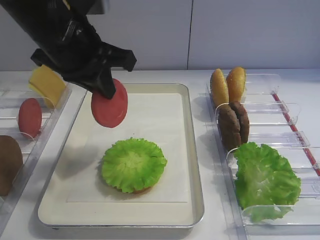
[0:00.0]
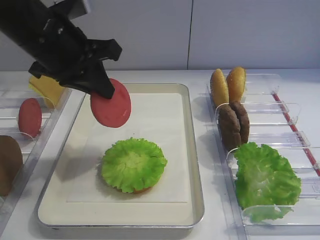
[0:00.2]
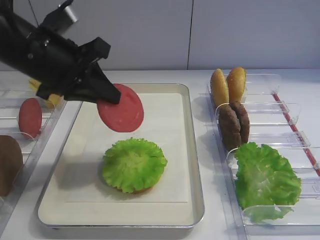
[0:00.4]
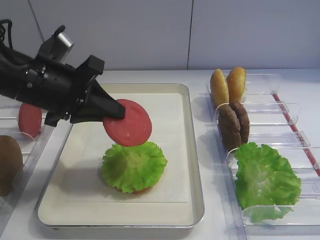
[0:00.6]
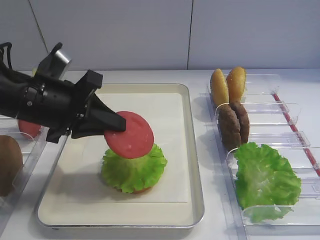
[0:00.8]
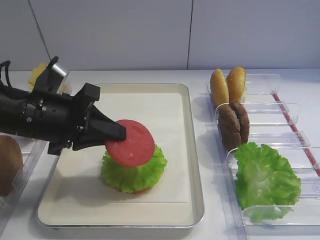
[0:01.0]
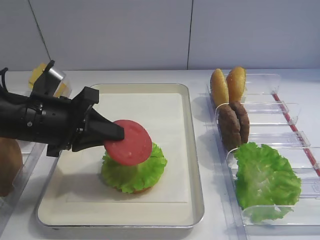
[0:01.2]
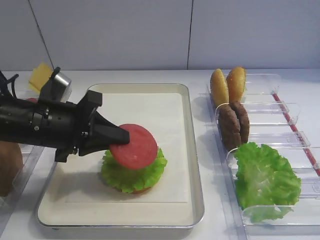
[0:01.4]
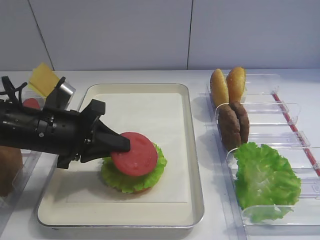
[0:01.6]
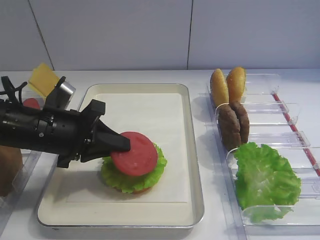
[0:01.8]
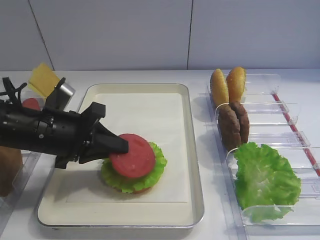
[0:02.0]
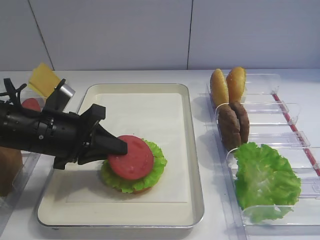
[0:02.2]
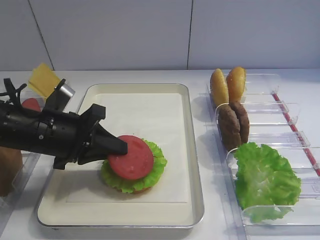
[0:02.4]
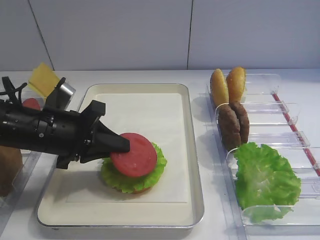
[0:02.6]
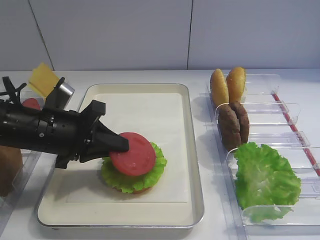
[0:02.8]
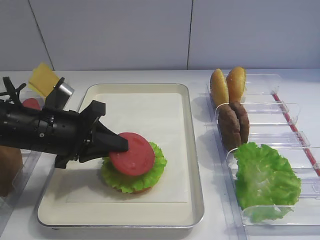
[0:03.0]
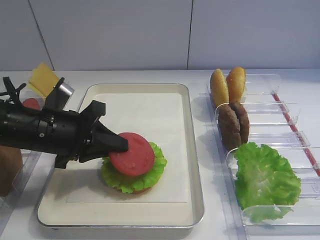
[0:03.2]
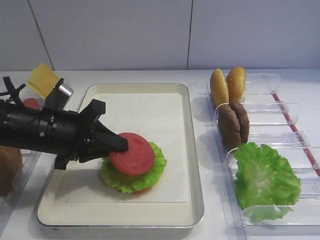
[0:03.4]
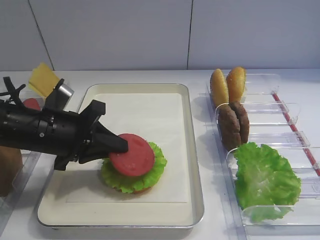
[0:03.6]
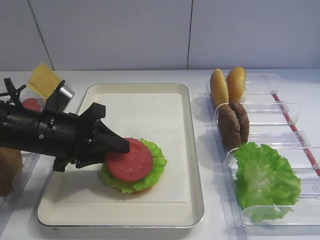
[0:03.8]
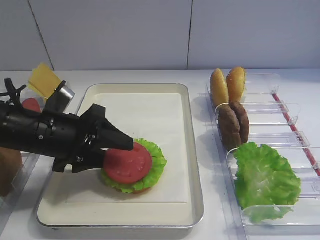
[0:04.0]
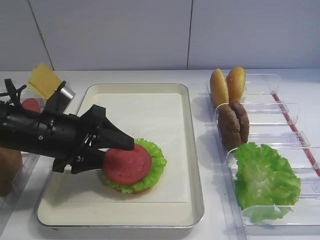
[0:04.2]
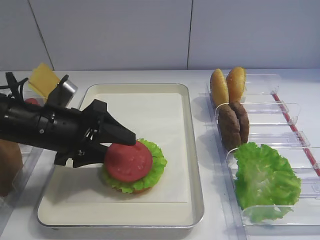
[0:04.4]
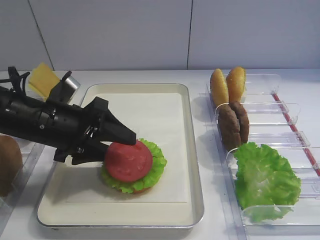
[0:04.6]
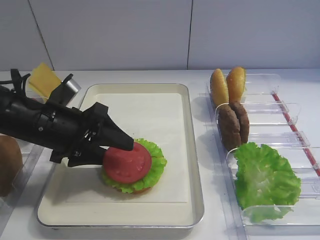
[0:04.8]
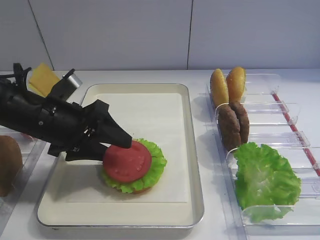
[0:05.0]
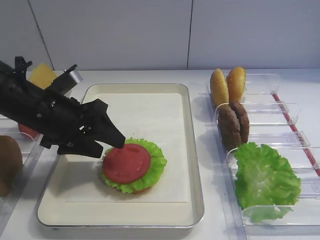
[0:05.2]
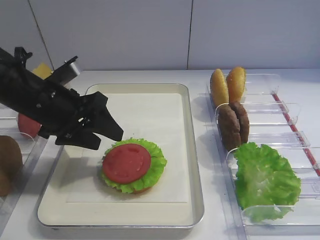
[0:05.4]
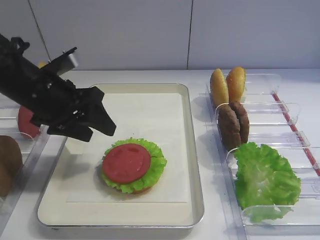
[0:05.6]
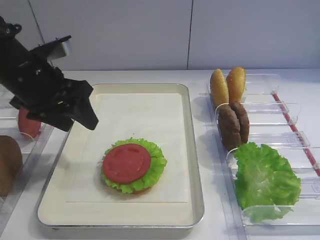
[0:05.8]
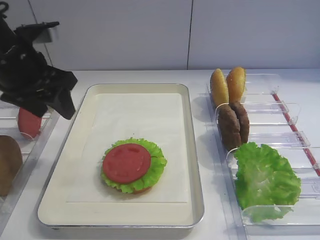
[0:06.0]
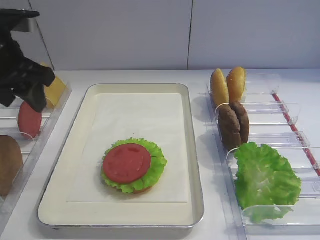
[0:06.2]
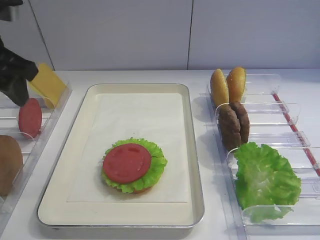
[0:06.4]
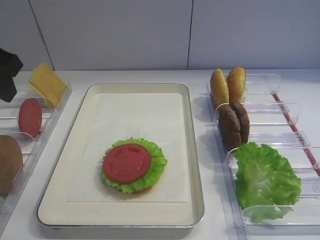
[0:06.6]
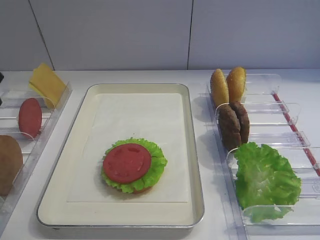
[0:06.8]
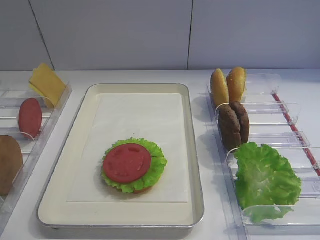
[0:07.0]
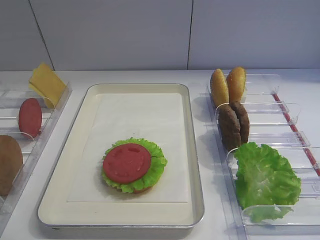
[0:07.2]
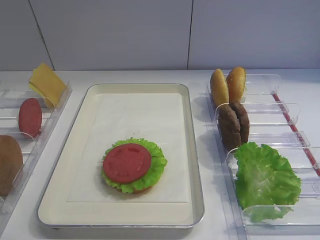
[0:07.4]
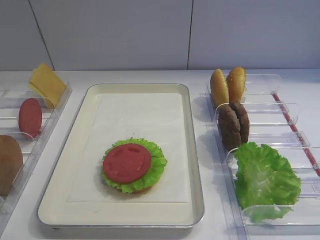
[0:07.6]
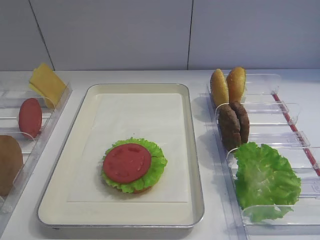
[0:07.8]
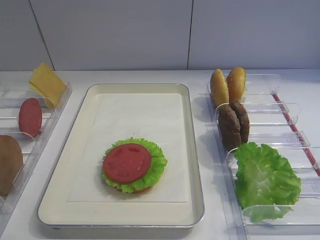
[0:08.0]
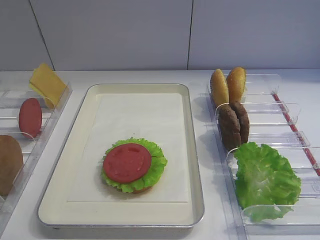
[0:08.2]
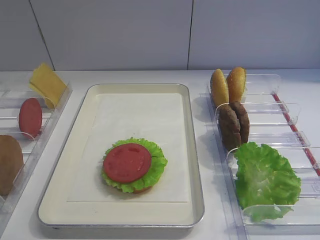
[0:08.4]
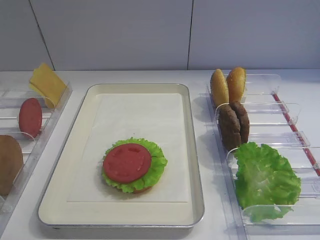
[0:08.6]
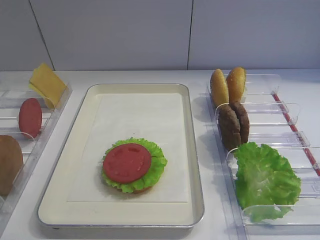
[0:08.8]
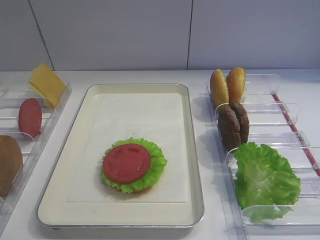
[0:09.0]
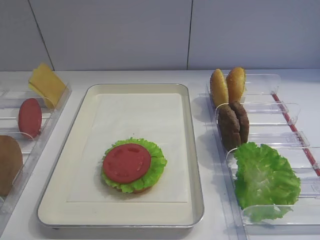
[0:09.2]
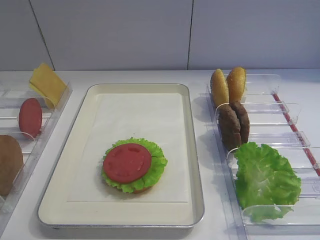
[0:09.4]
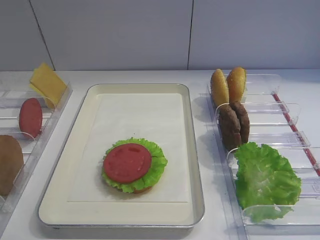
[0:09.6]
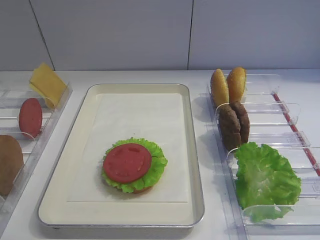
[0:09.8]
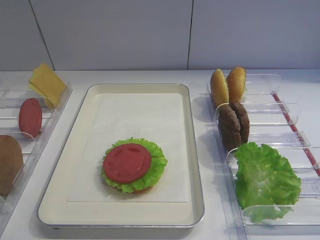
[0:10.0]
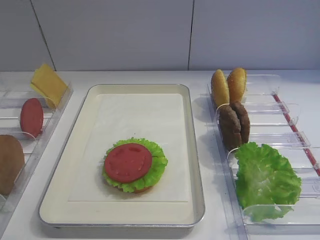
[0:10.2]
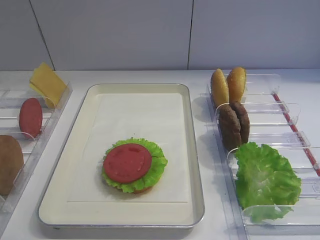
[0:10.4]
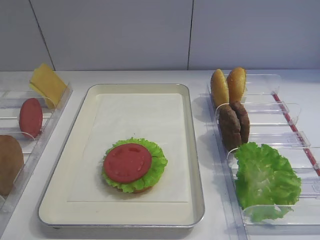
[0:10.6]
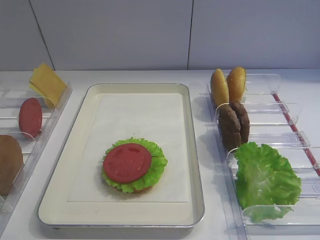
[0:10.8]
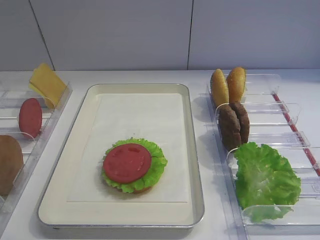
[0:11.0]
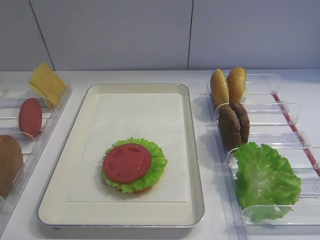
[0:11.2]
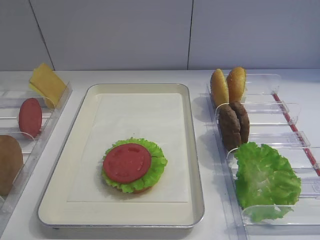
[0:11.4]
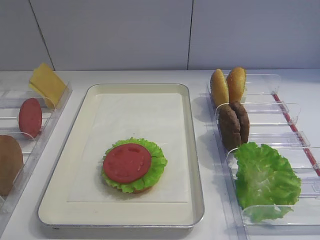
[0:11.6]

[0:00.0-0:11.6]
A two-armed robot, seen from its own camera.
Step, 0:00.0 to 0:05.8: Place the tomato slice on the lettuce leaf with the left gripper.
0:00.0 to 0:01.4: The left gripper goes roughly 15 cm downward.
0:01.4 to 0:02.8: The grippers stay close to where they were, moving slightly.
0:02.8 to 0:04.4: The left gripper opens.
0:04.4 to 0:05.8: The left gripper heads upward, covering some 5 cm.
0:05.8 to 0:07.2: The left gripper is displaced backward, to the left and upward by some 15 cm.
0:08.8 to 0:10.2: There are only small adjustments of the grippers.
0:10.2 to 0:11.6: The two grippers keep their place.

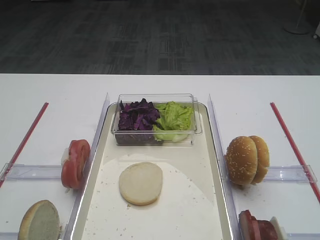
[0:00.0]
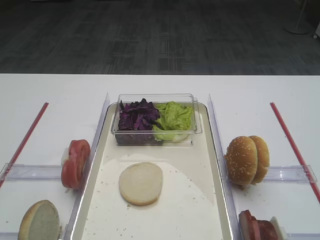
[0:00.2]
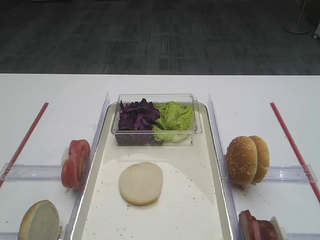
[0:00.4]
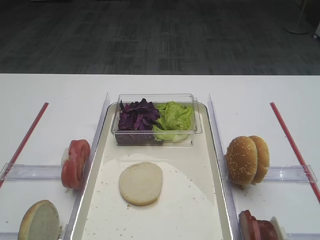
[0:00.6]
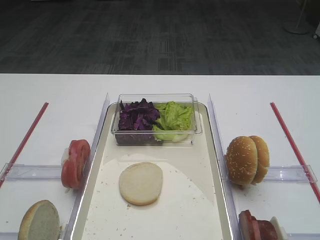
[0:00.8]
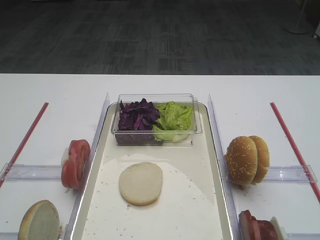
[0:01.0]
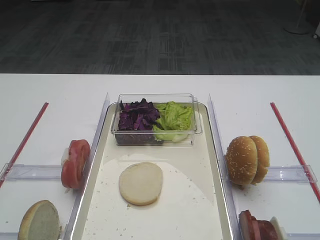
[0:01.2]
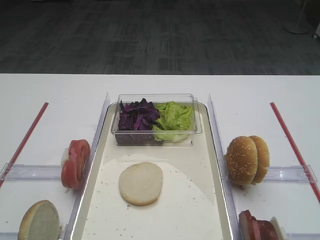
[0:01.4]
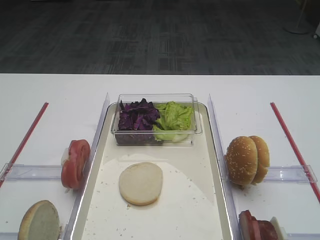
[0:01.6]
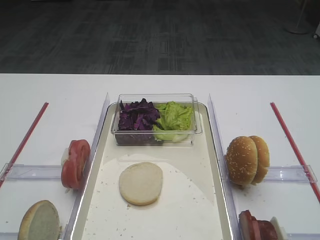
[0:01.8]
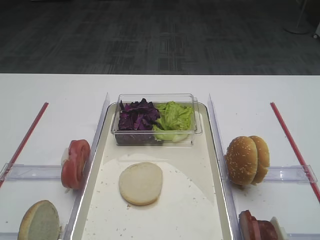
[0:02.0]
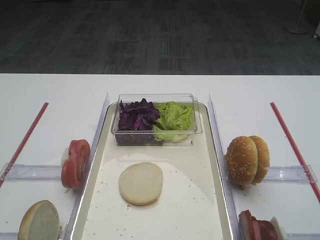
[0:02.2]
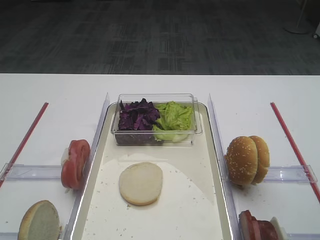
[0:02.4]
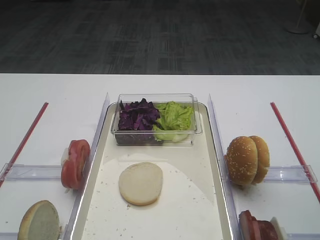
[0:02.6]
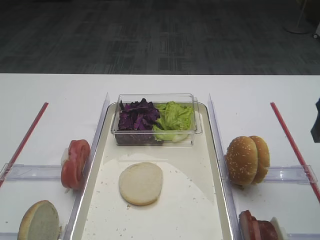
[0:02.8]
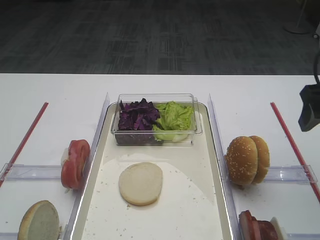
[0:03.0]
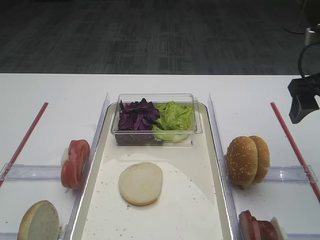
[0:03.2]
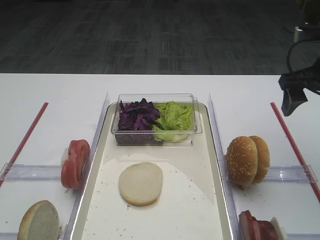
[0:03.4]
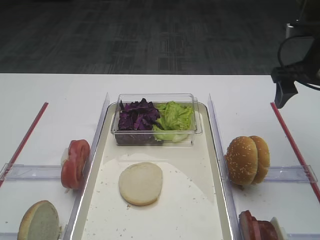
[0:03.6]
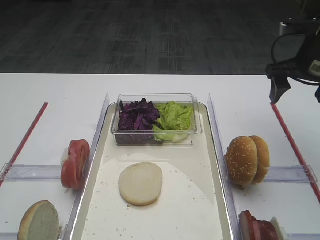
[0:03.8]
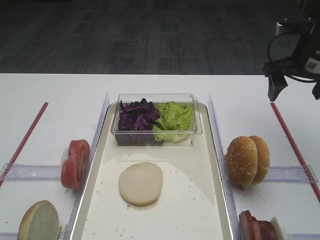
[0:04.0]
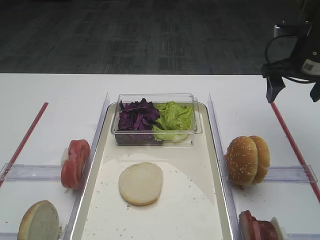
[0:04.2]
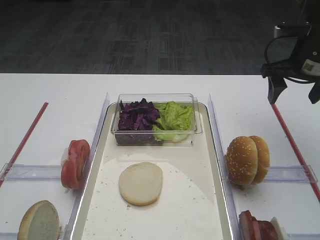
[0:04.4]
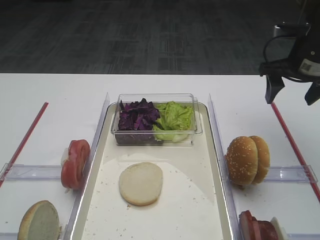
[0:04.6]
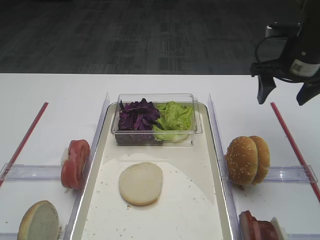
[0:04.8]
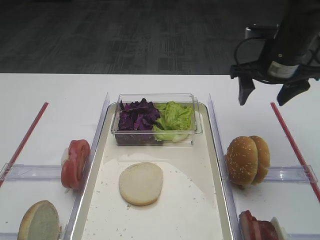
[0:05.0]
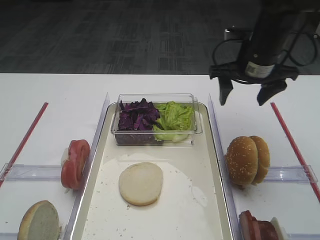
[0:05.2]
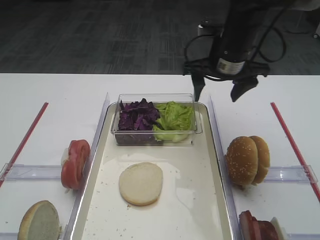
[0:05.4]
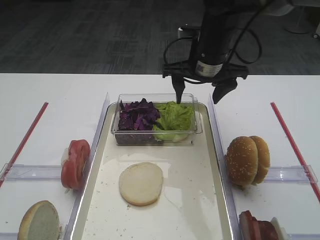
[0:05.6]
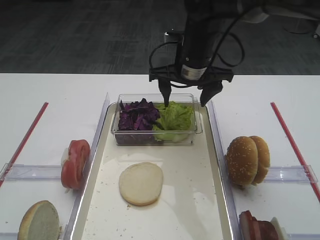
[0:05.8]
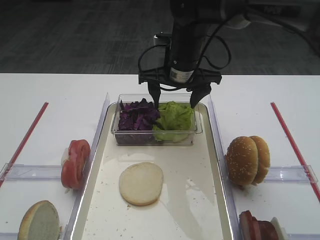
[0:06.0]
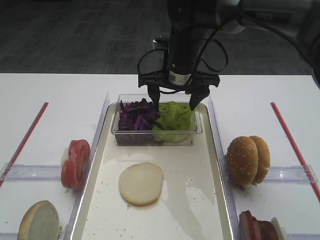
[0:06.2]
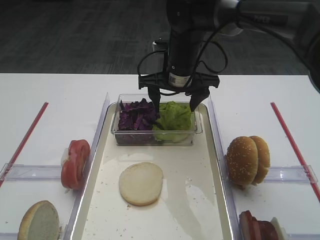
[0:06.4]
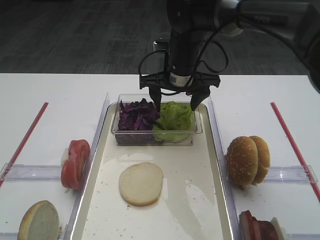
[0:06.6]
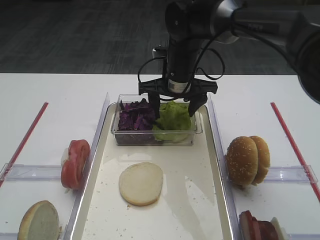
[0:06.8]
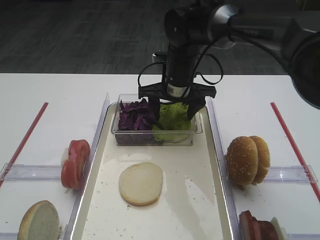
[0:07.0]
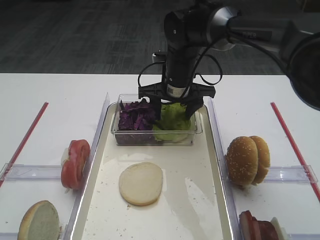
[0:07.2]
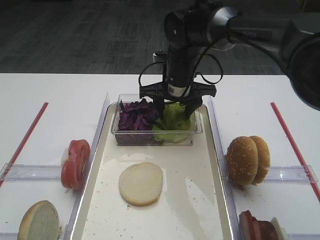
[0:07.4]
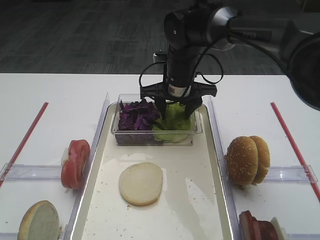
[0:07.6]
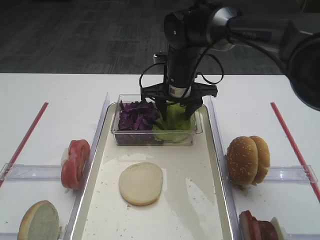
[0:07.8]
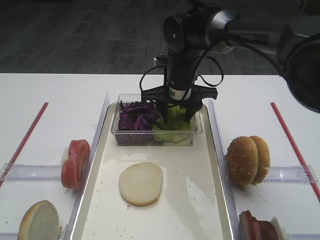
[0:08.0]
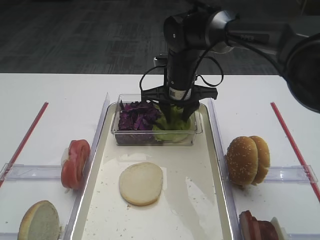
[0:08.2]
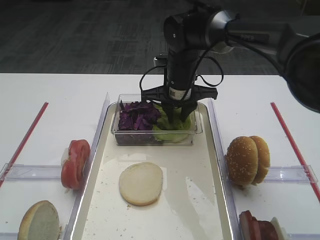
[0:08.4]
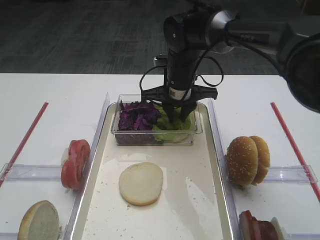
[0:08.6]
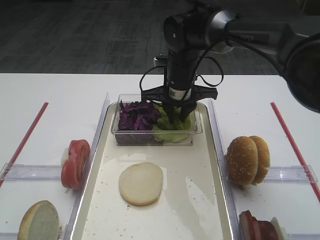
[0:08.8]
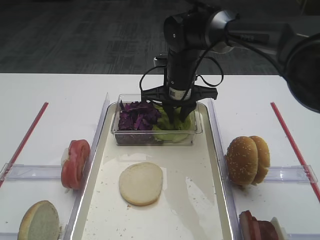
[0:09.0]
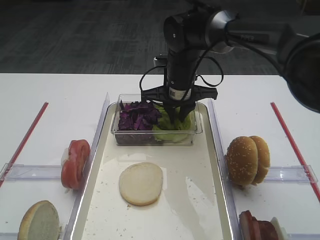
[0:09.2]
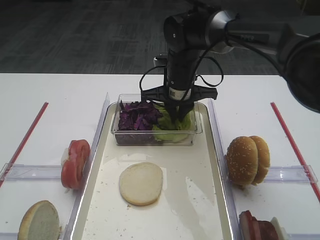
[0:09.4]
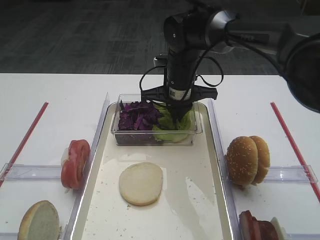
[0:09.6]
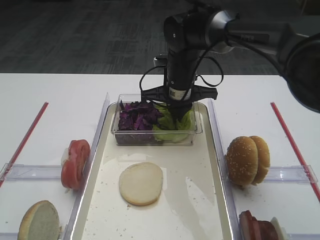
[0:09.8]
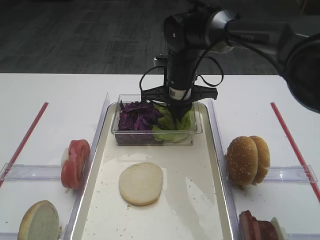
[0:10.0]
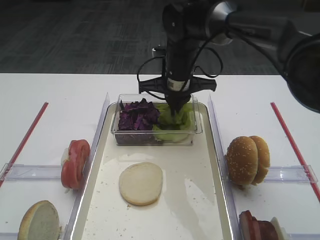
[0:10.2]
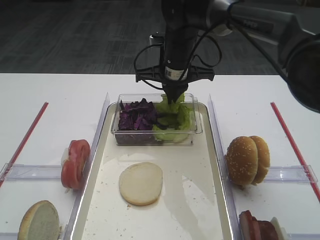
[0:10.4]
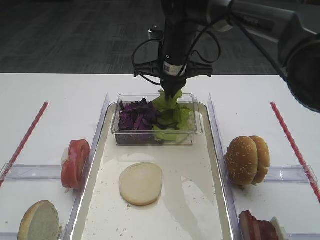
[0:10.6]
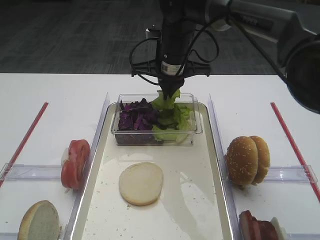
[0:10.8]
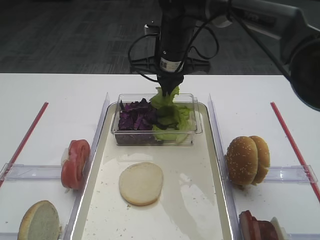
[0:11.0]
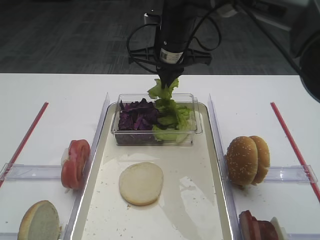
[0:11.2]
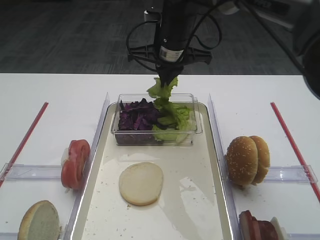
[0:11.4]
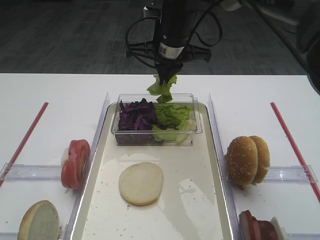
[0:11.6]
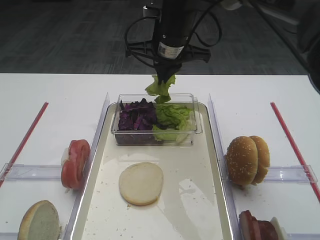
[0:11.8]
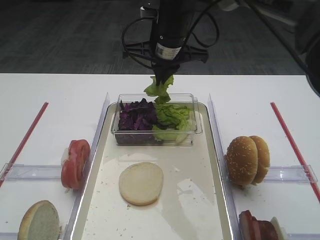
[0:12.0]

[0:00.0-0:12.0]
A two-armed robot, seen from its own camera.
Step, 0:00.0 to 0:10.2: Pick up the lettuce leaf with the right gripper.
0:01.6 to 0:03.0: The right gripper goes about 25 cm forward.
0:03.0 to 0:04.4: The right gripper travels forward by about 15 cm.
0:04.4 to 0:06.0: The right gripper shifts approximately 20 cm to the left.
0:06.0 to 0:07.6: There are only small adjustments of the grippers.
0:07.6 to 0:09.0: The two grippers keep their place.
0:09.0 to 0:10.4: There are only small adjustments of the grippers.
0:10.4 to 0:12.0: The right gripper goes approximately 5 cm upward.
